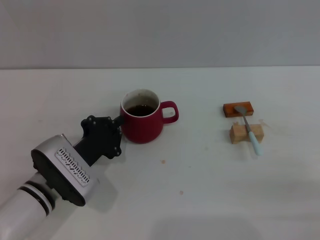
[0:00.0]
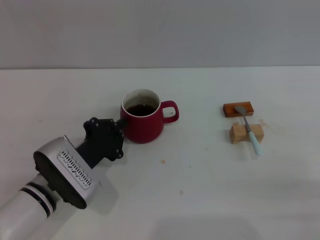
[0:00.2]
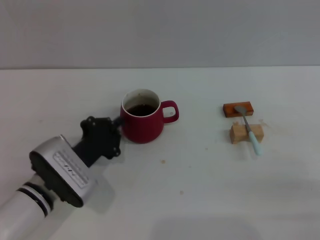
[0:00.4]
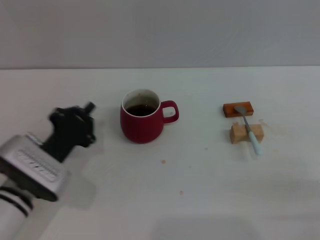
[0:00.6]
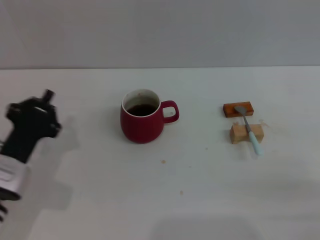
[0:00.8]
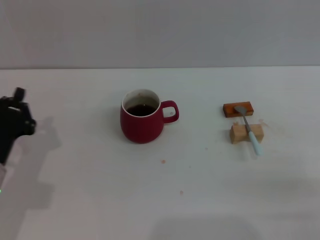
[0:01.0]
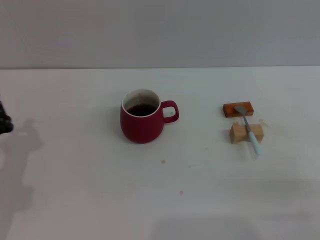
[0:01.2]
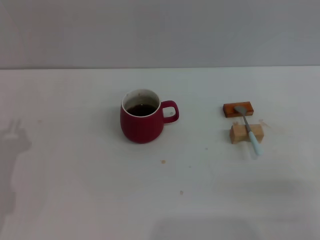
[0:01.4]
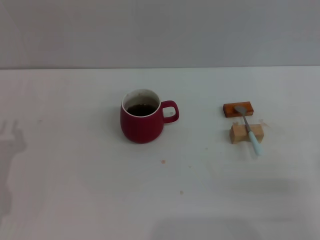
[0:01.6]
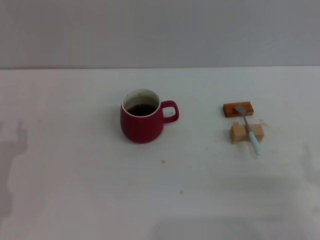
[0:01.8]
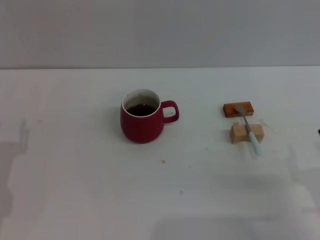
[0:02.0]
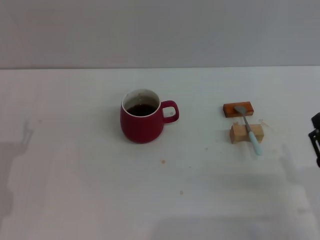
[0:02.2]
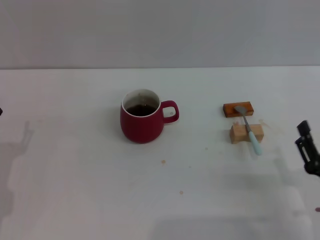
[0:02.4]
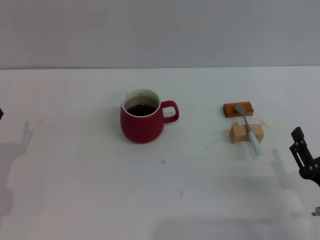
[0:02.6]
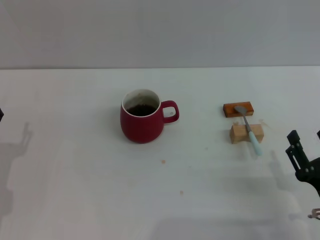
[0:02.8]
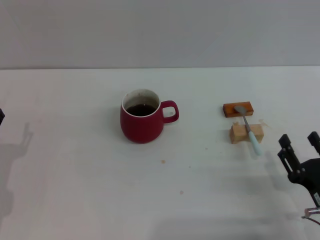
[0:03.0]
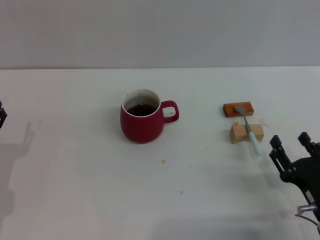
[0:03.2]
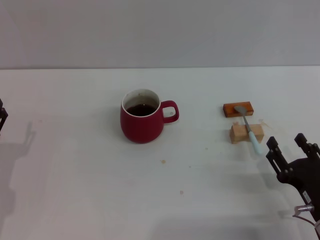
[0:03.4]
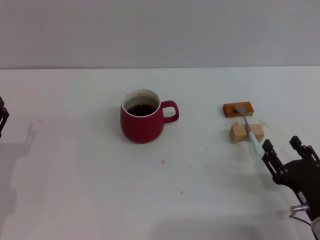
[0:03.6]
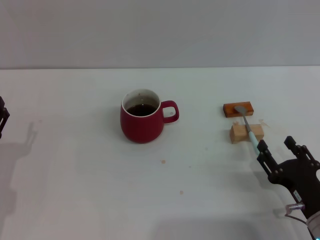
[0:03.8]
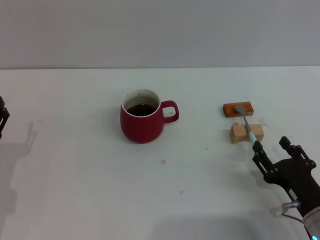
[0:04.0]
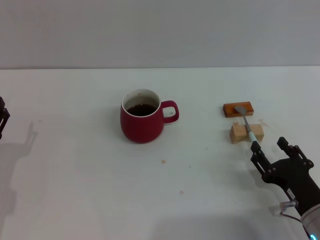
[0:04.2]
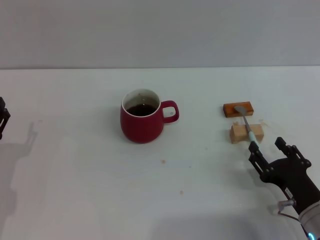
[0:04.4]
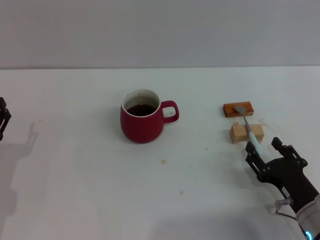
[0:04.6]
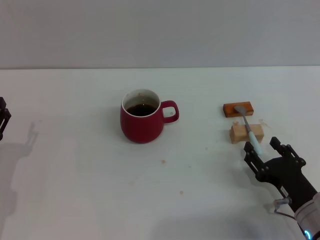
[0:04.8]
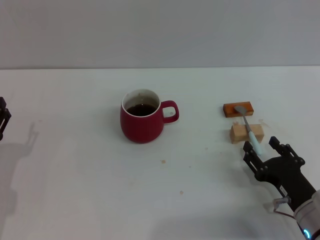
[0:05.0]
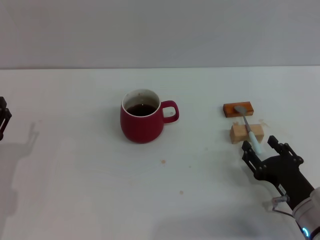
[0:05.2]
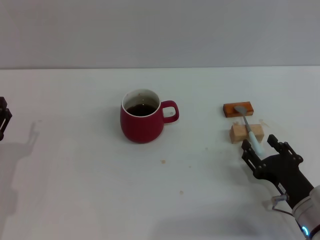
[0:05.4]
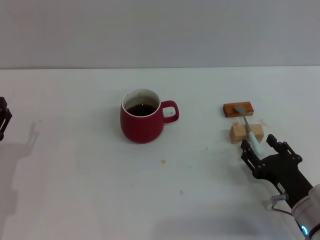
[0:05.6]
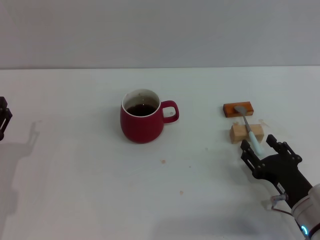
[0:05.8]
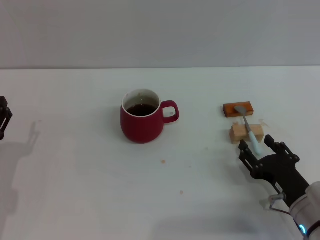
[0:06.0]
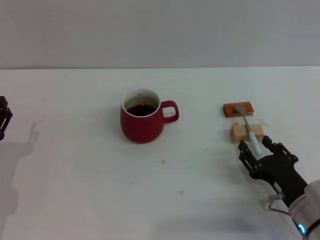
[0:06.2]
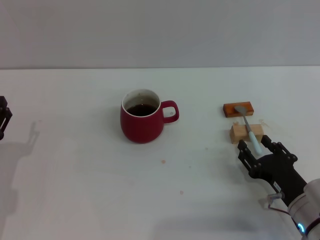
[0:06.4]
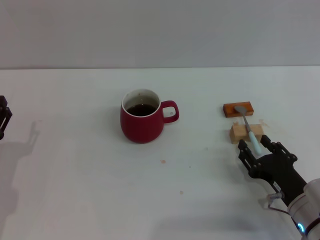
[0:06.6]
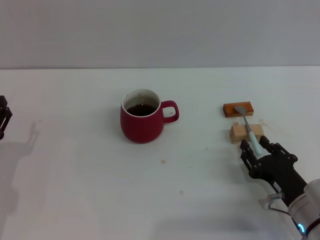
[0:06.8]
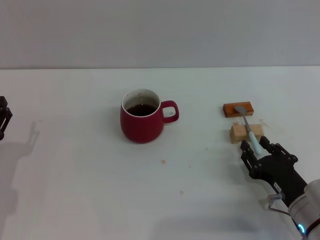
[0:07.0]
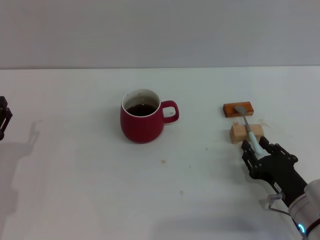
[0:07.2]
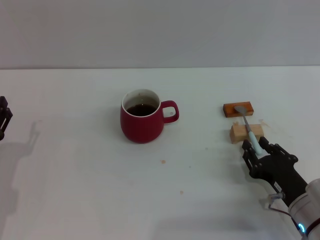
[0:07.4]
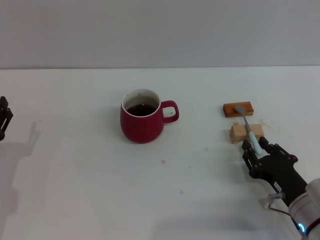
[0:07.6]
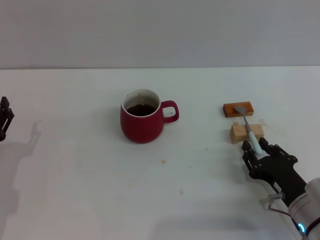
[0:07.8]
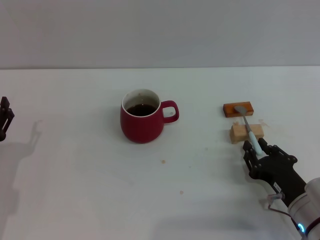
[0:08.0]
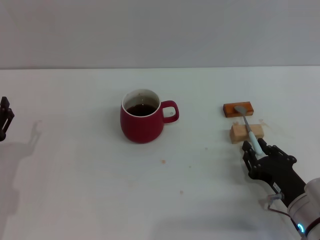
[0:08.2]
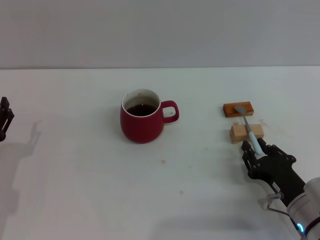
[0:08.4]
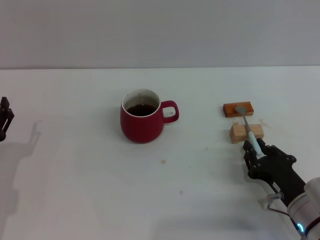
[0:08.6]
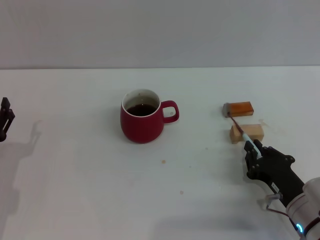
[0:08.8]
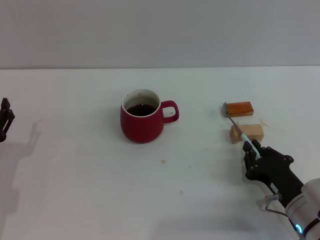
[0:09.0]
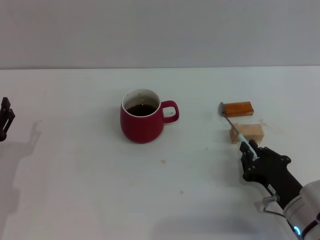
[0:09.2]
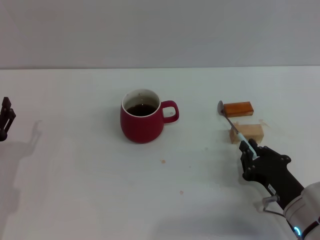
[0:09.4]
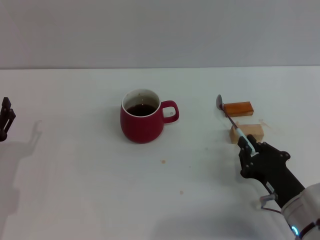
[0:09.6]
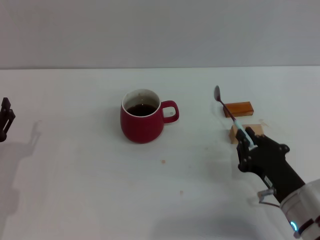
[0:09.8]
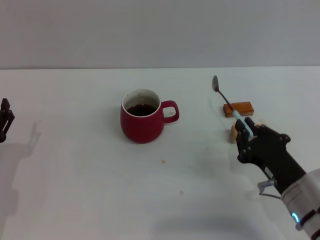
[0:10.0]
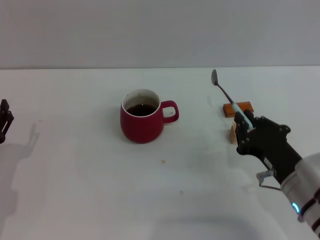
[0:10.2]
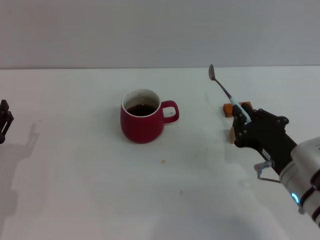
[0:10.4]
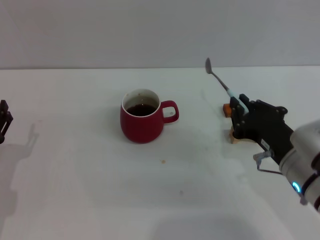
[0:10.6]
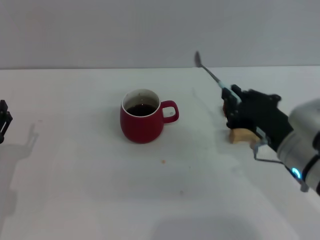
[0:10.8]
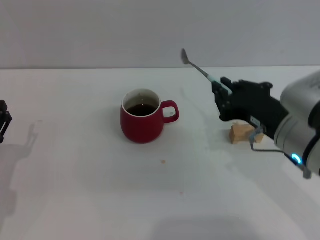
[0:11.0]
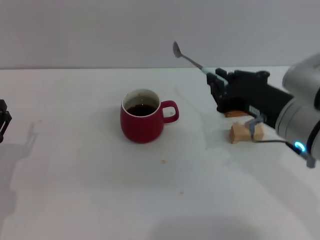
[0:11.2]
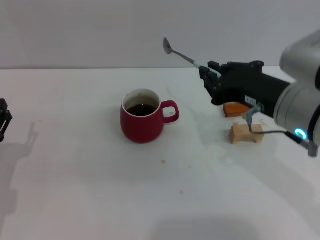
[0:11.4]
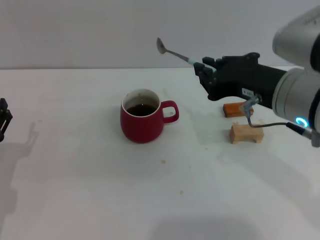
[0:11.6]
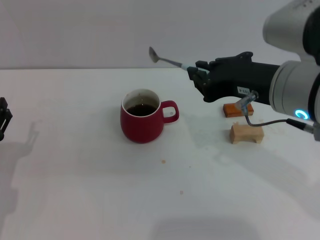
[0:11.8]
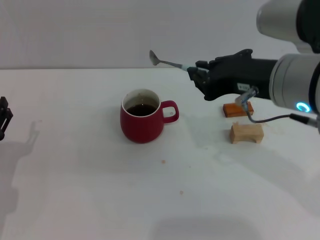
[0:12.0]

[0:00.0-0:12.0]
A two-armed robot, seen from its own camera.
Task of the whole recording: Move the red cup to the center, lift the blue spoon, stir it three times in the cup, and put the spoon into the cup.
Step, 0:00.6 to 0:10.2: Pick up the spoon with the right gripper.
0:00.0 to 0:01.6: The left gripper is displaced to the left and backward by about 15 cm.
0:01.6 to 0:03.0: The right gripper changes place by about 5 cm.
0:03.0 to 0:06.0: The grippers make only small movements.
0:06.0 to 0:07.6: The right gripper closes up.
0:07.6 to 0:09.0: The right gripper closes its fingers.
0:09.0 to 0:10.4: The right gripper shifts about 10 cm upward.
0:10.4 to 0:12.0: The right gripper shifts some 15 cm upward.

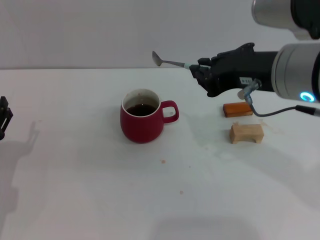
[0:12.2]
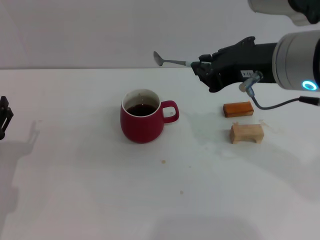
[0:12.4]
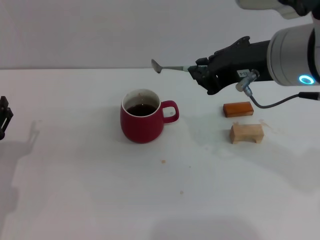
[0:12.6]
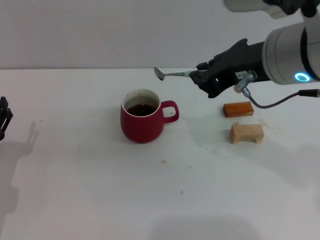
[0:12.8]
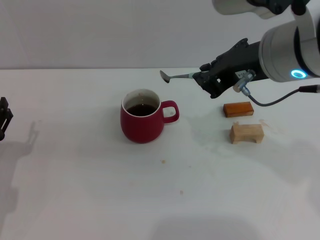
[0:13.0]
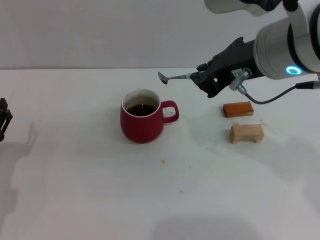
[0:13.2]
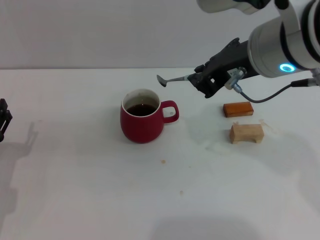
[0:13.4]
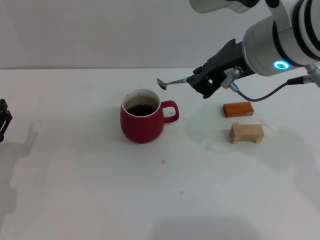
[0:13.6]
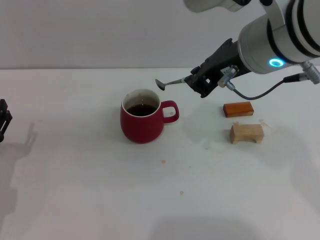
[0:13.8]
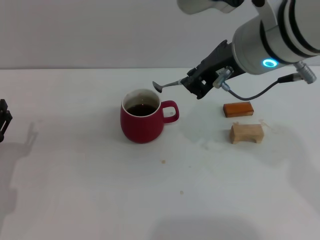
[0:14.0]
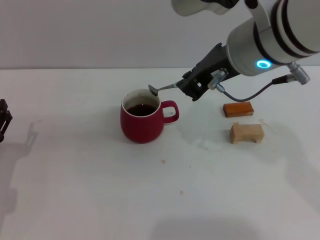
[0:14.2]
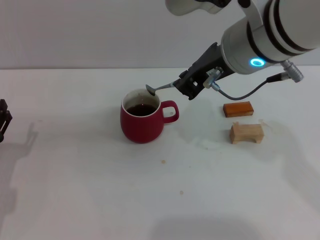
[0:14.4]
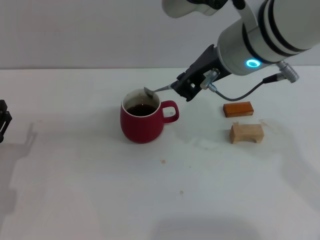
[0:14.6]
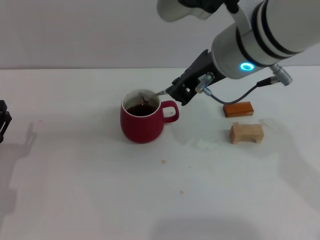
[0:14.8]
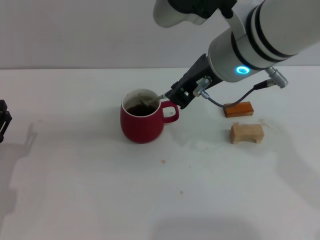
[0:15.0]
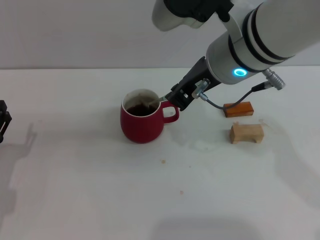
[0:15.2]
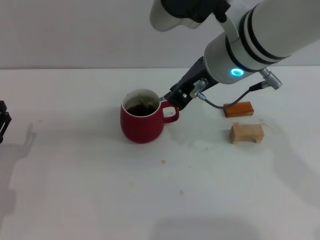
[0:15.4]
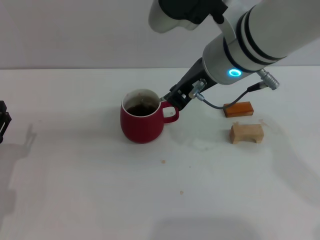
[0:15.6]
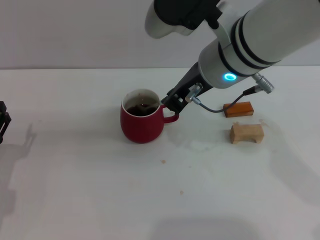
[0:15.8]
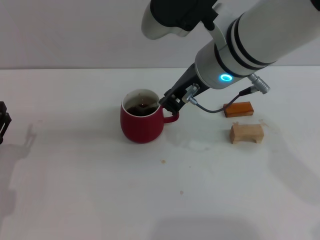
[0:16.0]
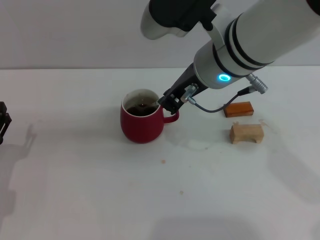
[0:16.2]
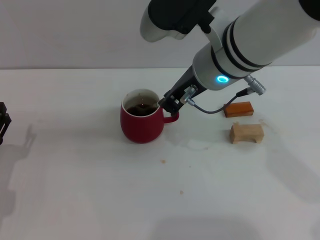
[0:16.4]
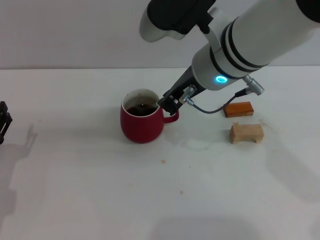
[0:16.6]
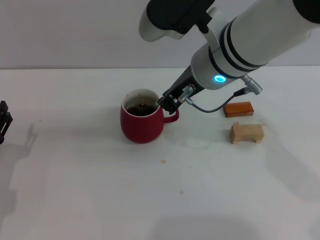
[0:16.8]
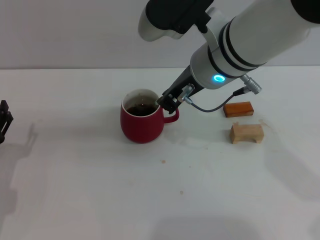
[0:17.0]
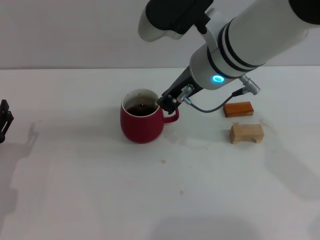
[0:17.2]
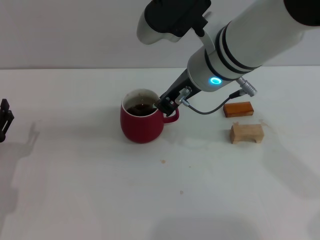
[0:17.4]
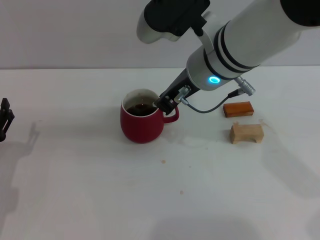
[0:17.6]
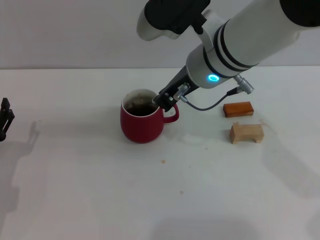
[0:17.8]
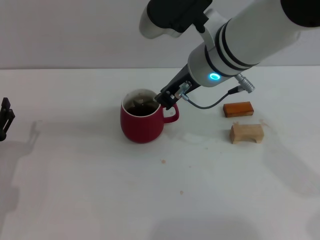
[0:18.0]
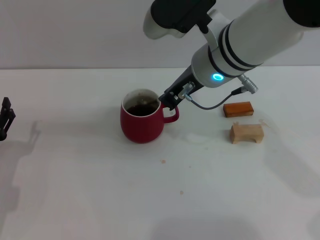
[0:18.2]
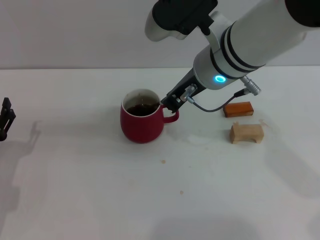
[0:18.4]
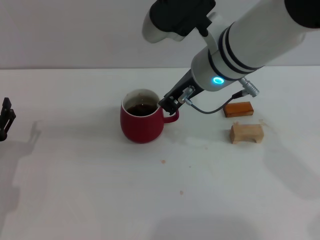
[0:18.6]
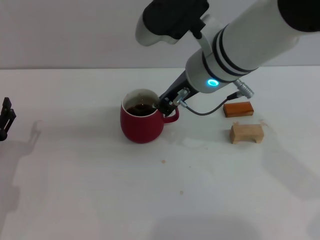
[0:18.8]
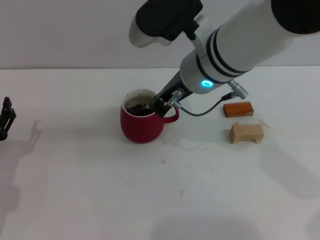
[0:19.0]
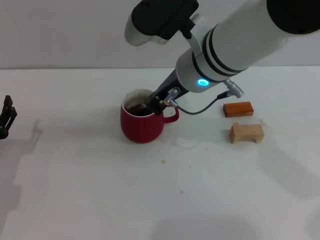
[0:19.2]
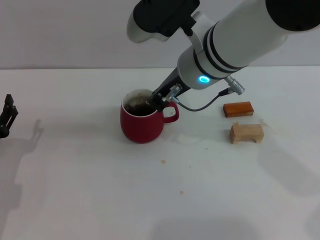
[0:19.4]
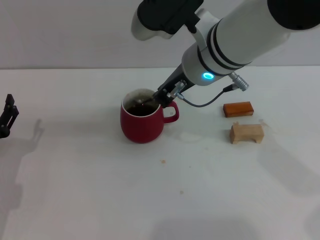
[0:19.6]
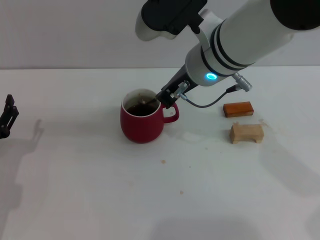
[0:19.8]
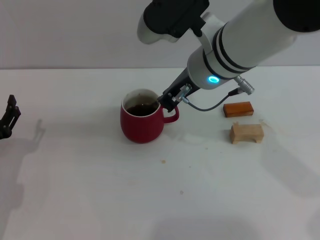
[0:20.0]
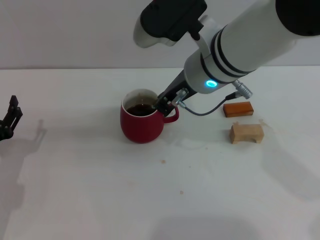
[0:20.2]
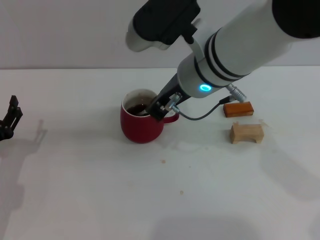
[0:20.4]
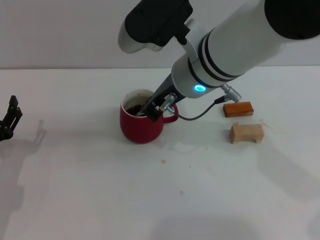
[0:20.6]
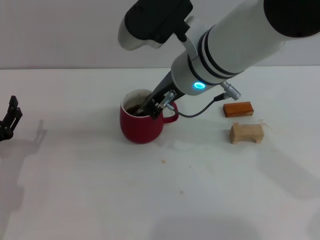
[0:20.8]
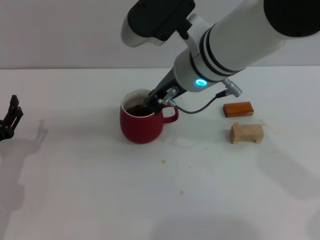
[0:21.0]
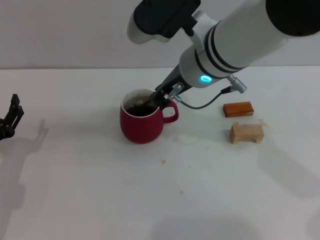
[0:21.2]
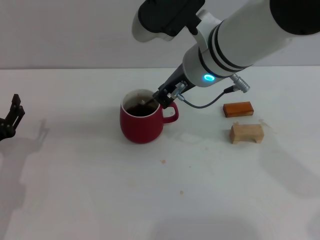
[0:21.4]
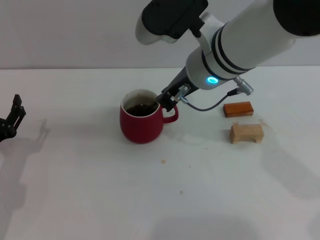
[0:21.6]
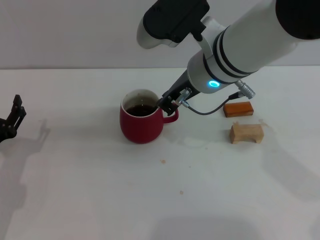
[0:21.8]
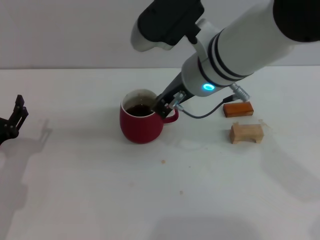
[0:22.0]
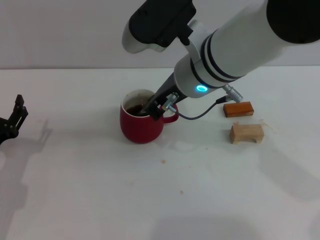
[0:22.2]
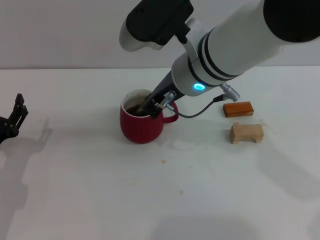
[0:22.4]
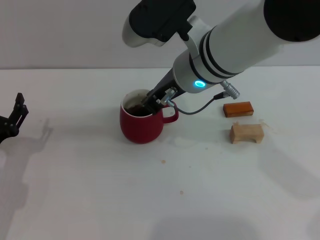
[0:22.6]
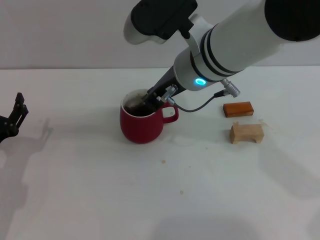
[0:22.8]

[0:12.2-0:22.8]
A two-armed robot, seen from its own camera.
Task of the whole recording: Move the red cup to the center, lift the blue spoon, stir it three times in the cup, and put the spoon into the cup.
0:12.2 to 0:13.8: The right gripper moves approximately 5 cm.
0:13.8 to 0:15.2: The grippers move only a little.
0:15.2 to 0:21.2: The grippers move only a little.
0:21.2 to 0:22.8: Neither gripper changes place.
